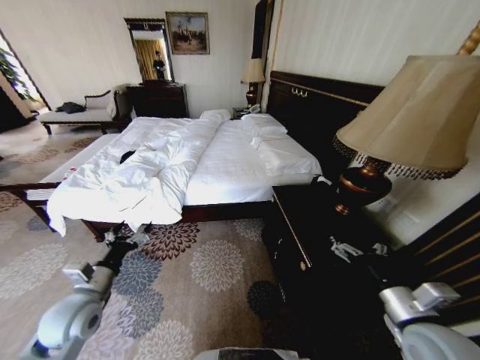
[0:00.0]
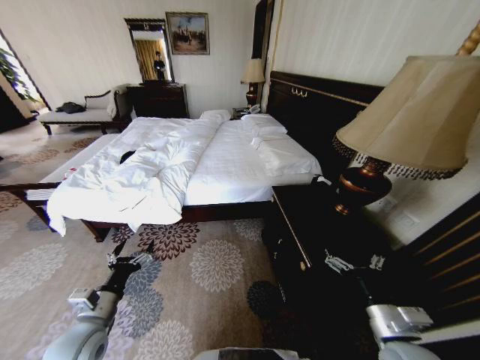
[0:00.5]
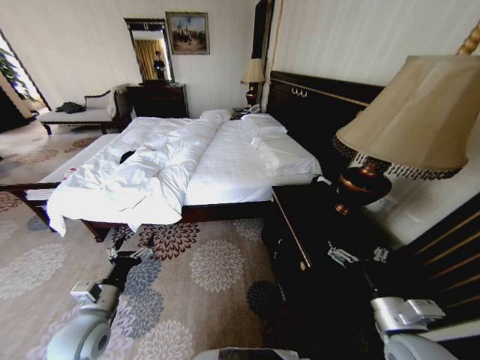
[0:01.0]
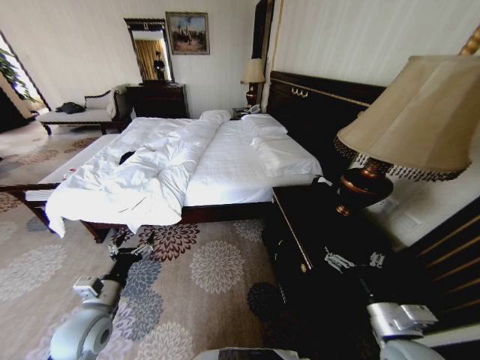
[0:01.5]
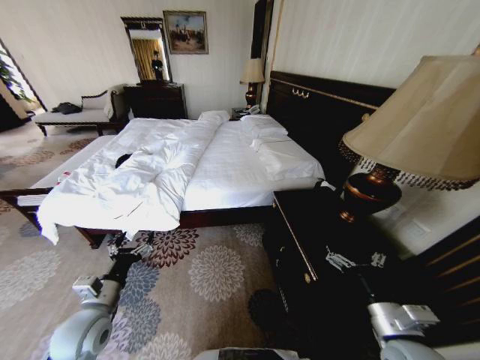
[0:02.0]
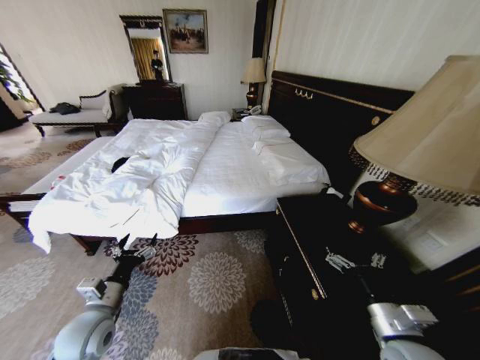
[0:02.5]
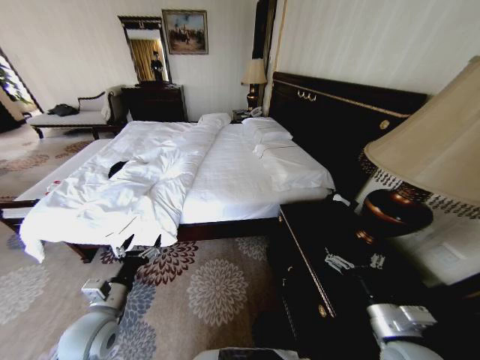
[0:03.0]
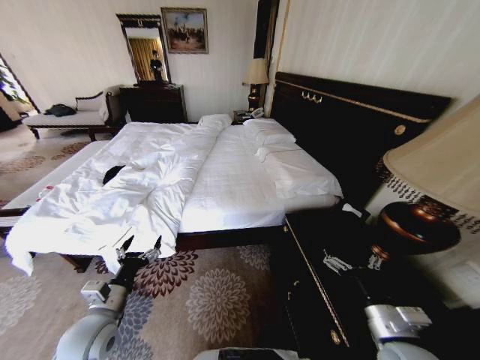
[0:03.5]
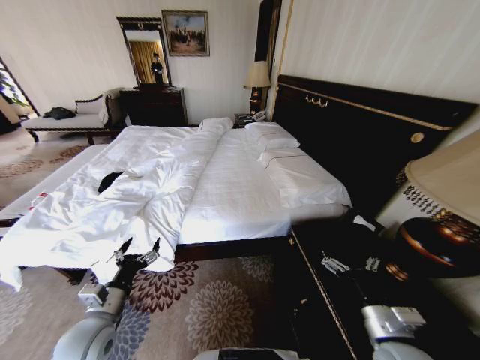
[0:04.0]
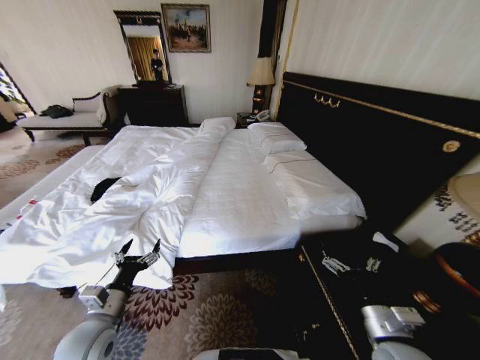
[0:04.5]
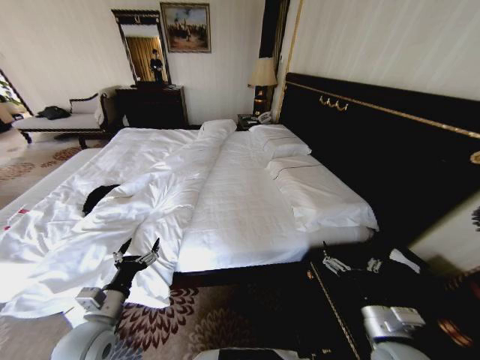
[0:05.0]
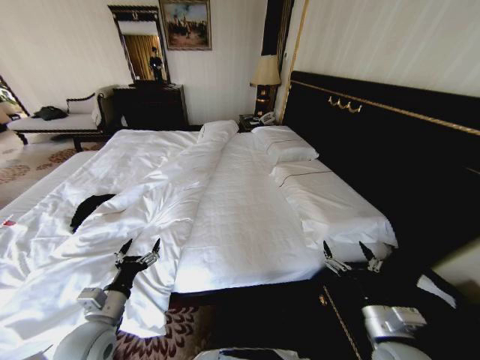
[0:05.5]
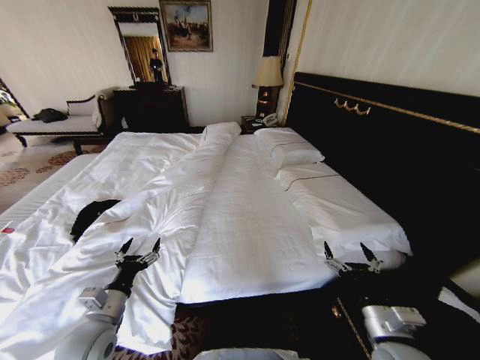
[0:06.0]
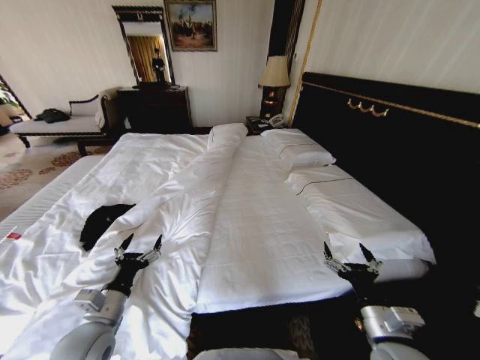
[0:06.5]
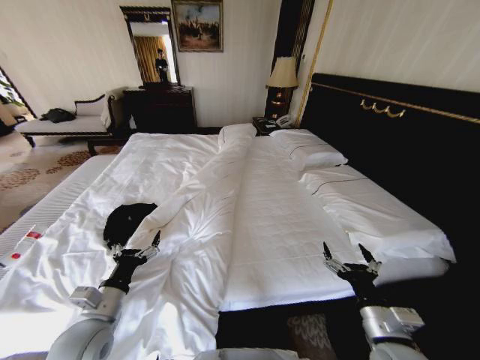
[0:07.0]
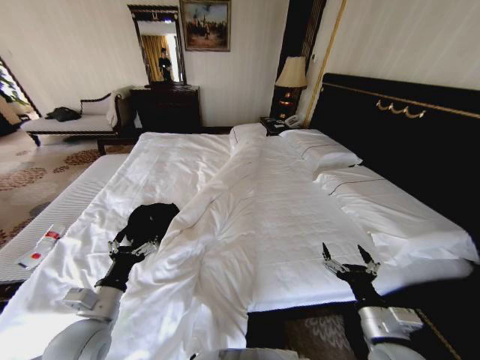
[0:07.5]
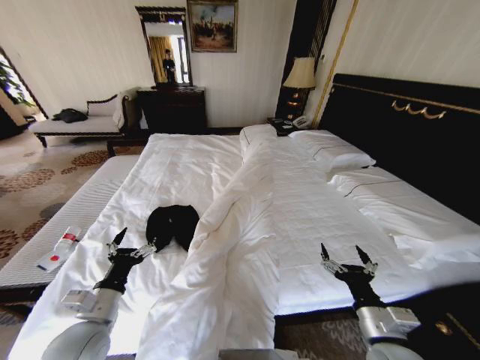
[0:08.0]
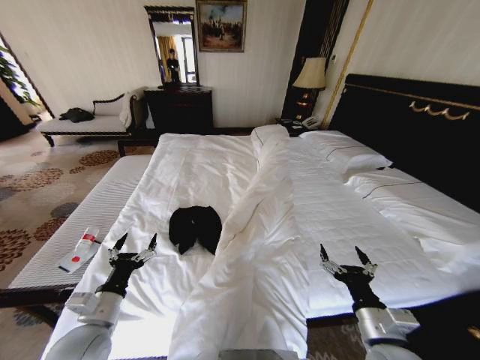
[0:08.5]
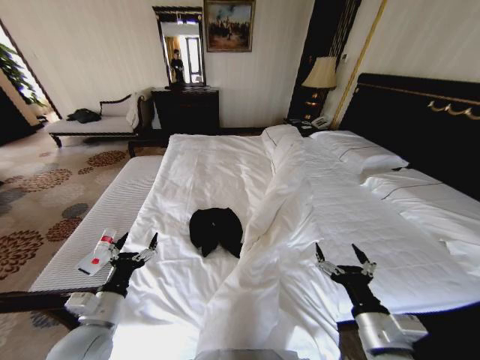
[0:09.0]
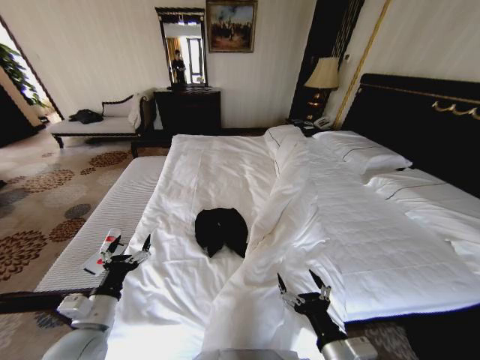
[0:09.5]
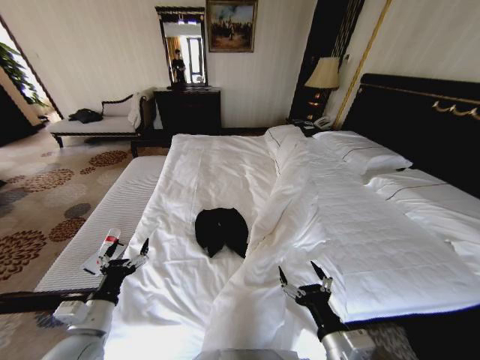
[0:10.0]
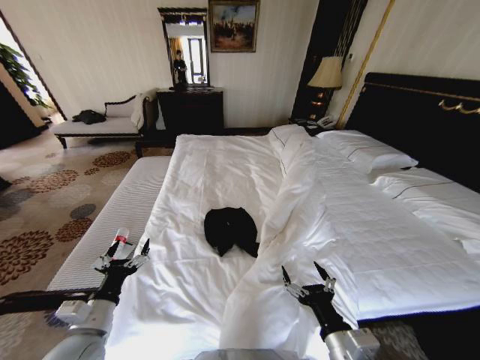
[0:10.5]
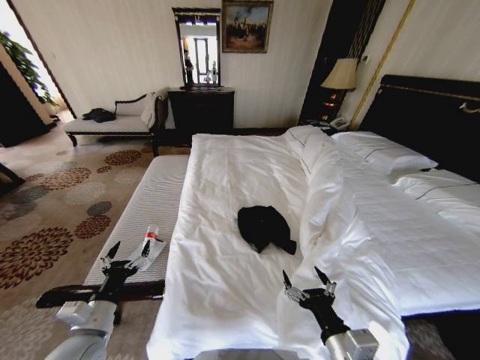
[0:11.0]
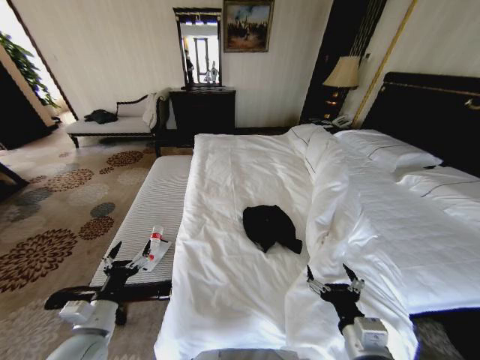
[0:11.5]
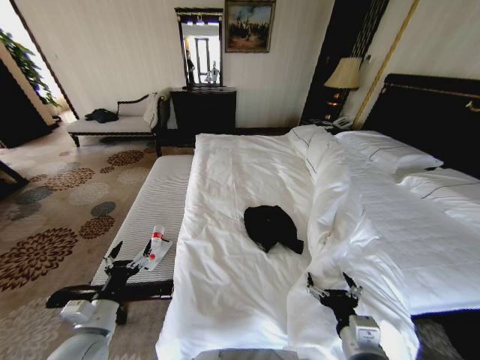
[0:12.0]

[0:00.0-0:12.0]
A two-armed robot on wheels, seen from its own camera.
Task of the whole recording: Fold the clothes on the bed.
0:08.0 to 0:10.0: The right gripper is displaced to the left by approximately 10 cm.

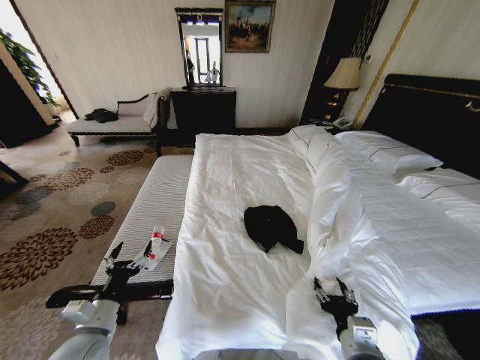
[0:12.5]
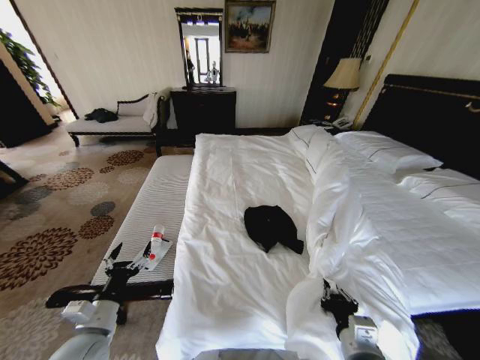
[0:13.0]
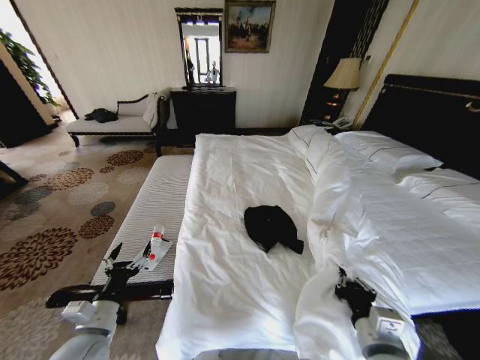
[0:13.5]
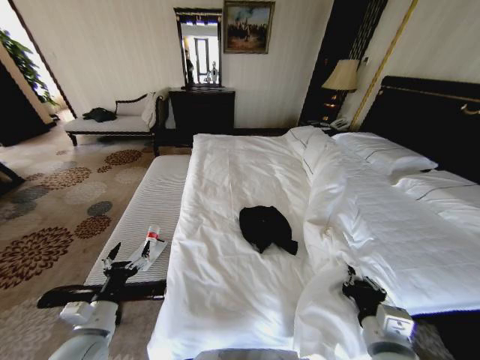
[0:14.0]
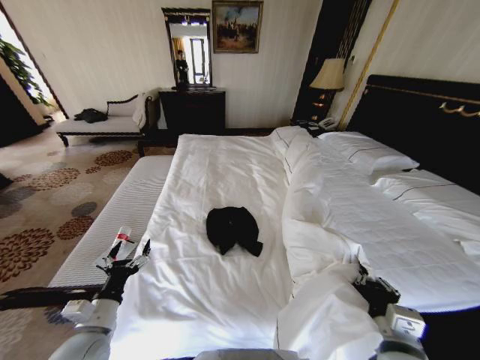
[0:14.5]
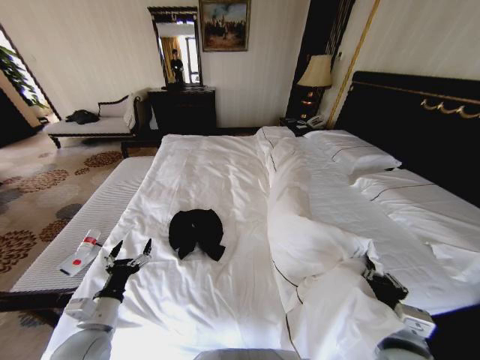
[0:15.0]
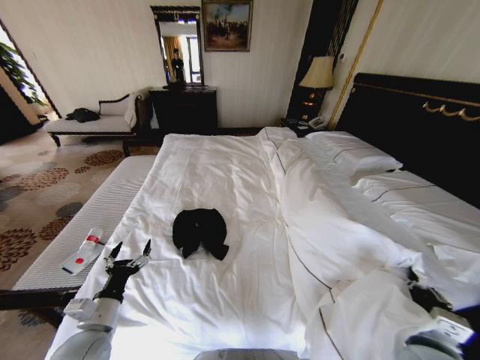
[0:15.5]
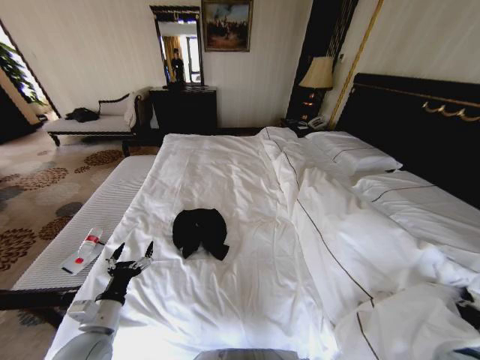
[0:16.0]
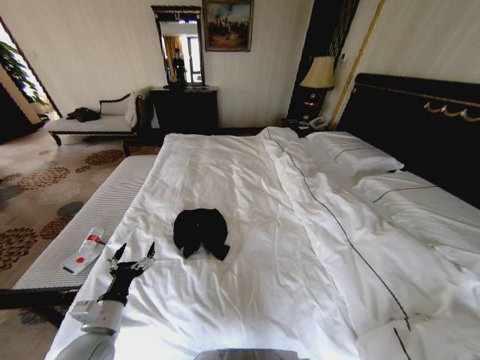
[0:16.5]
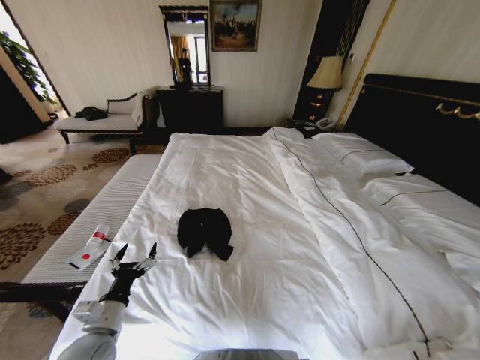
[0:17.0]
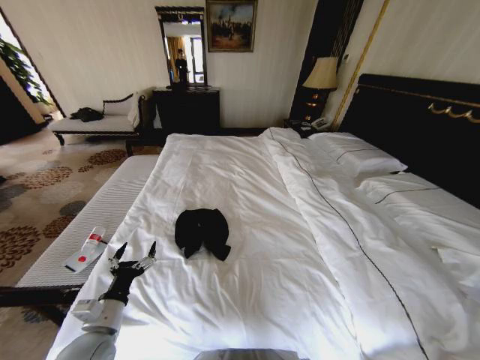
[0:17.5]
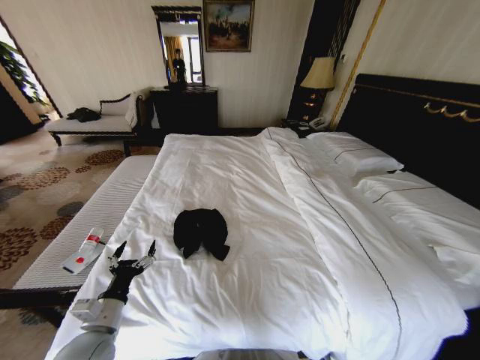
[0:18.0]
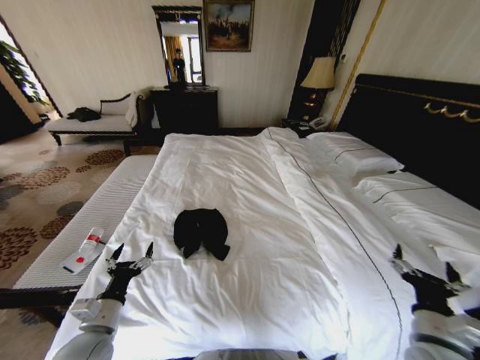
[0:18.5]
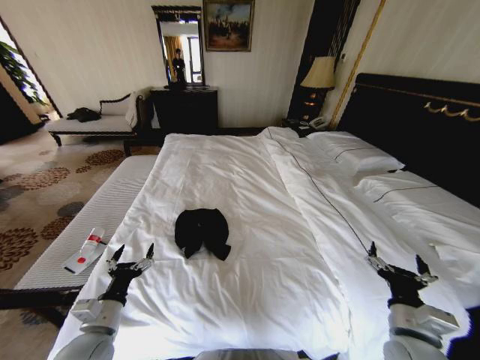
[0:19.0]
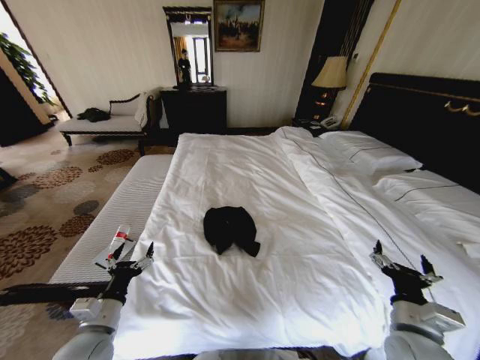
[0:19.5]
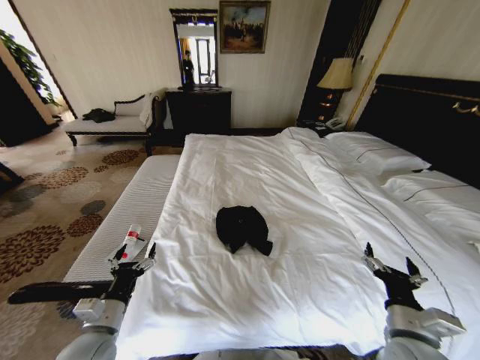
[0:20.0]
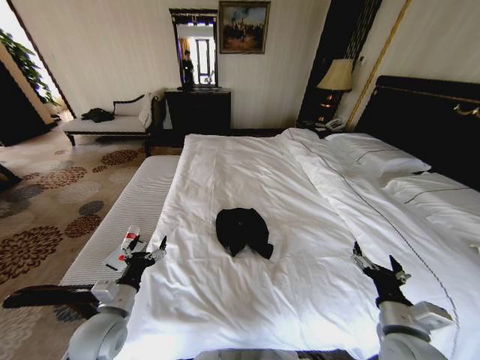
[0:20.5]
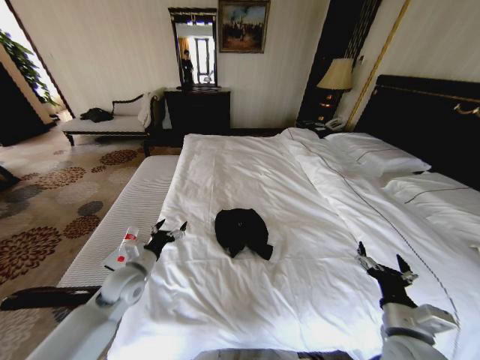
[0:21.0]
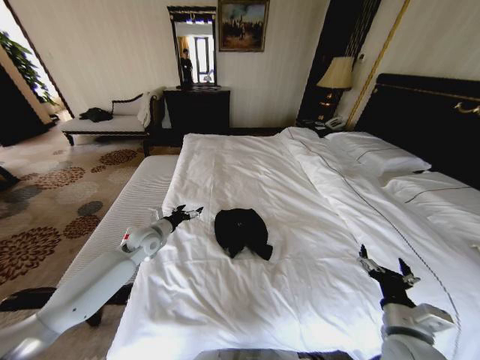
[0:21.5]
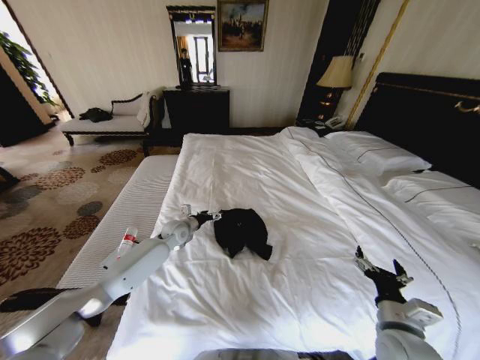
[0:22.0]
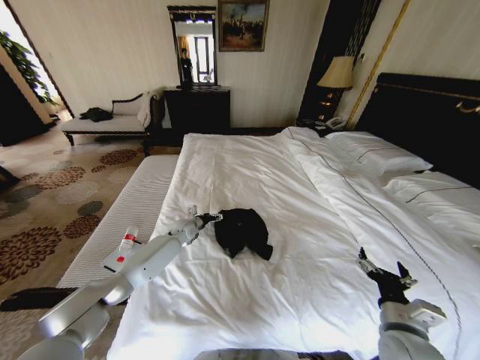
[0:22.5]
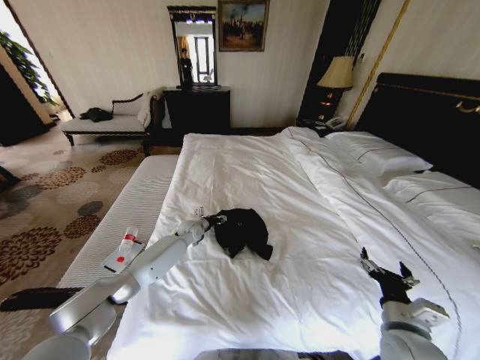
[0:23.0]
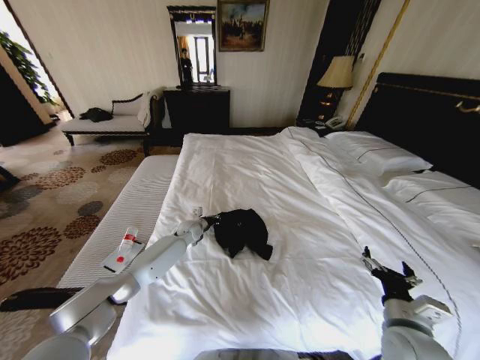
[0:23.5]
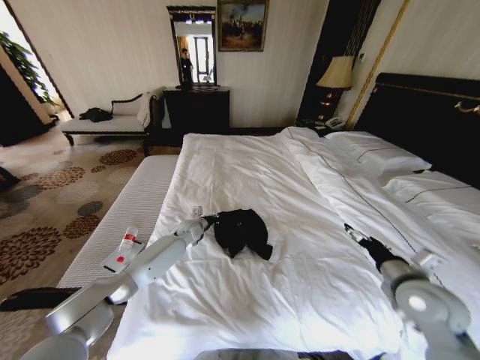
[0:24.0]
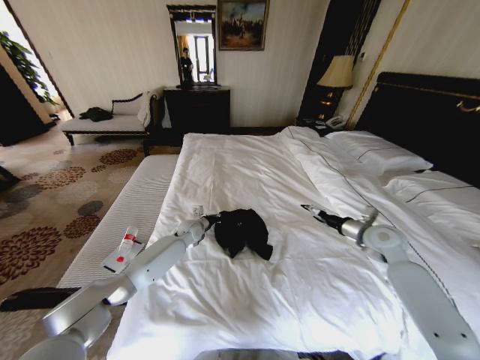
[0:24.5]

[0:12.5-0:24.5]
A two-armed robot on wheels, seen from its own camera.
Task of the whole recording: Fold the clothes on the bed.
0:12.5 to 0:14.5: The right gripper moves some 5 cm, and closes.
0:14.5 to 0:16.5: The right gripper heads to the right and downward, covering some 25 cm.
0:16.5 to 0:18.5: The right gripper is displaced to the left and upward by about 20 cm, and opens its fingers.
0:20.5 to 0:22.5: The left gripper goes about 35 cm forward.
0:22.5 to 0:24.5: The left gripper closes up; the right gripper goes roughly 25 cm forward.

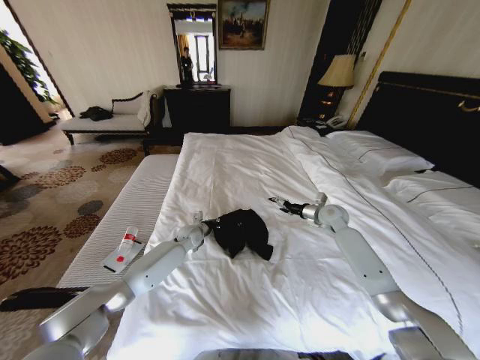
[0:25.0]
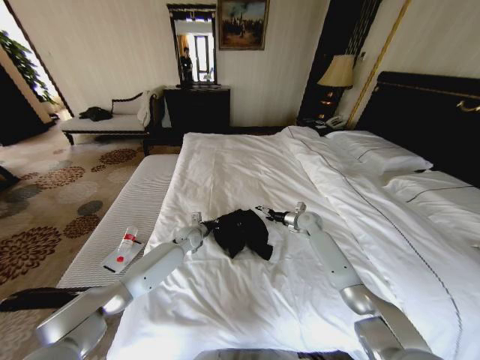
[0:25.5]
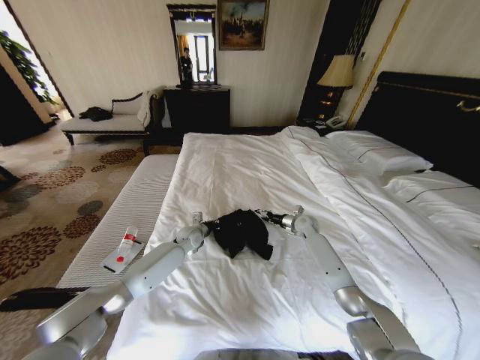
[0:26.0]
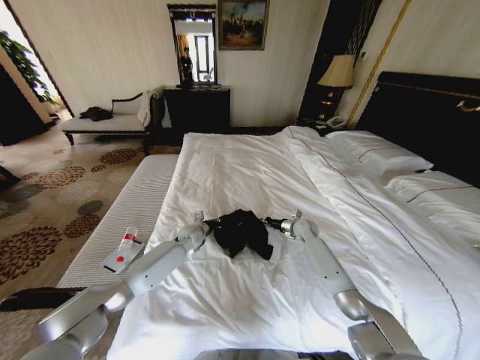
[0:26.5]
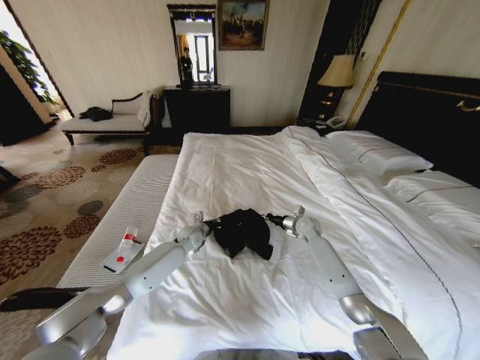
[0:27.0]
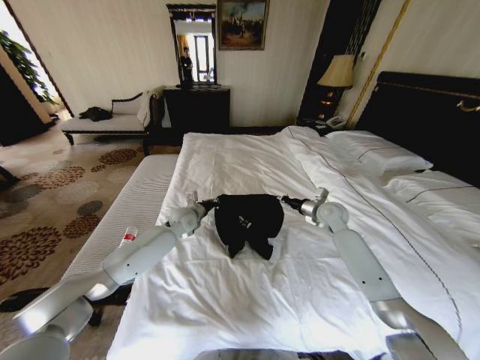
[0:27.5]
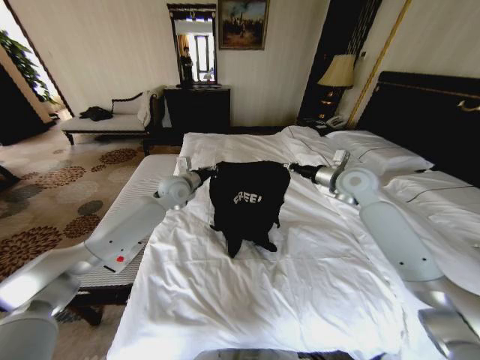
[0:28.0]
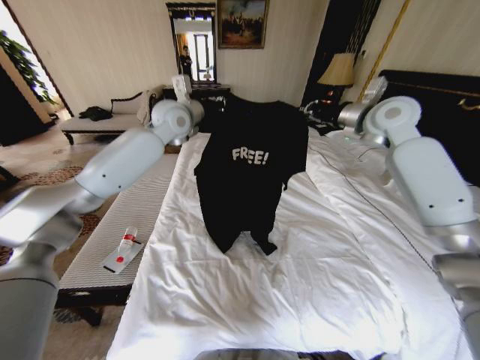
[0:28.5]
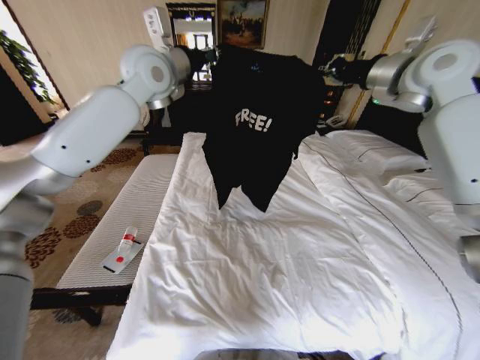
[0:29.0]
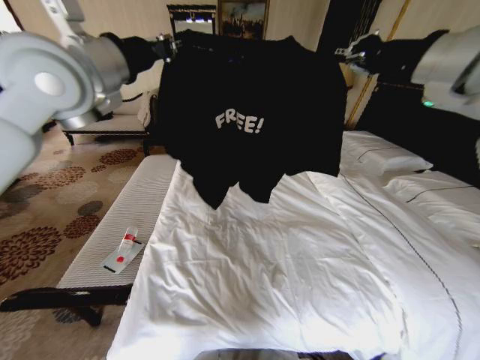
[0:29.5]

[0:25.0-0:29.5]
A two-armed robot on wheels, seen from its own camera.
Task of the whole recording: Fold the clothes on the bed.
0:25.0 to 0:27.0: The right gripper heads downward and to the left, covering roughly 10 cm, and closes up.
0:27.0 to 0:29.5: The two grippers go some 50 cm upward.
